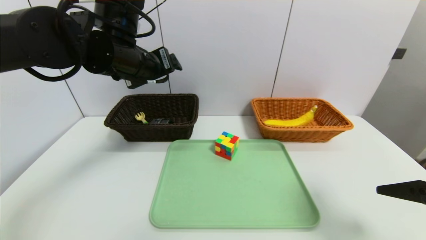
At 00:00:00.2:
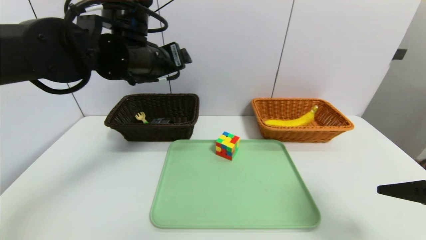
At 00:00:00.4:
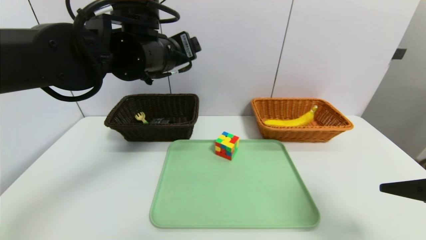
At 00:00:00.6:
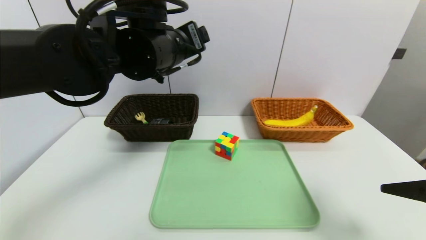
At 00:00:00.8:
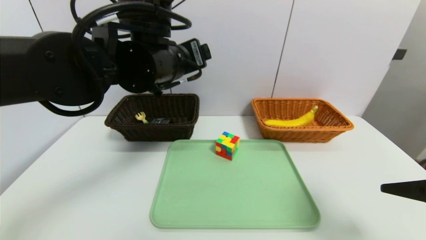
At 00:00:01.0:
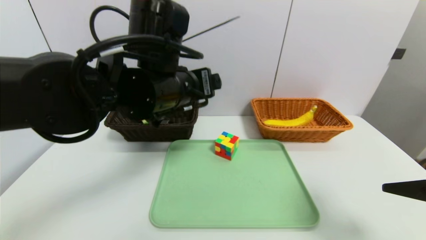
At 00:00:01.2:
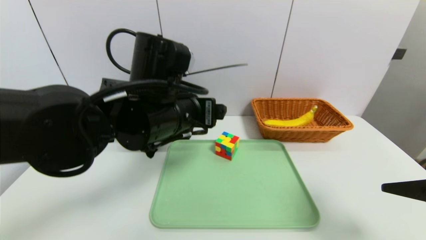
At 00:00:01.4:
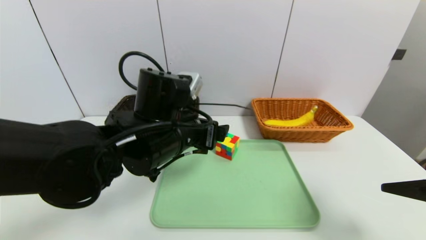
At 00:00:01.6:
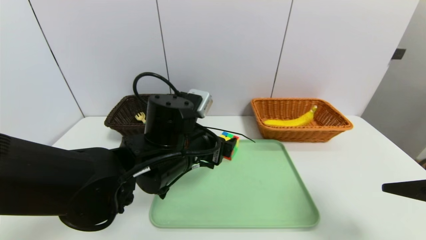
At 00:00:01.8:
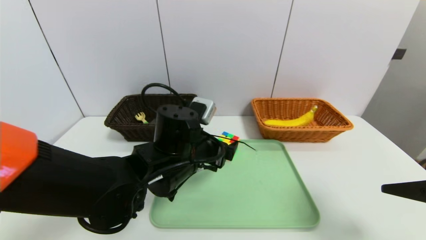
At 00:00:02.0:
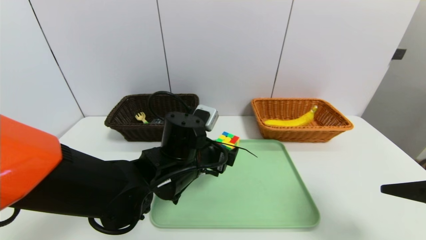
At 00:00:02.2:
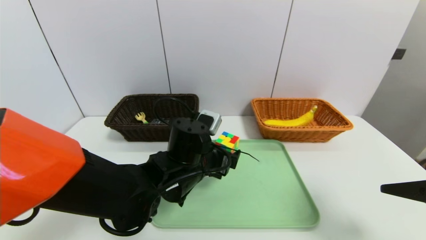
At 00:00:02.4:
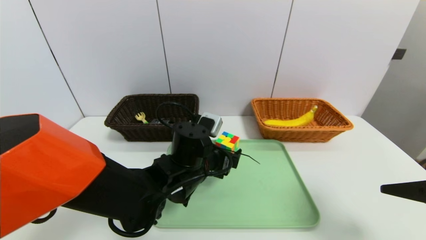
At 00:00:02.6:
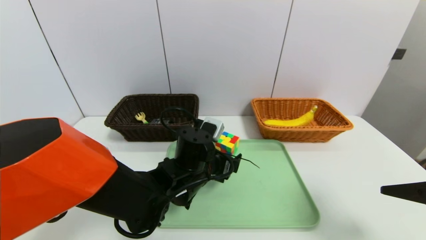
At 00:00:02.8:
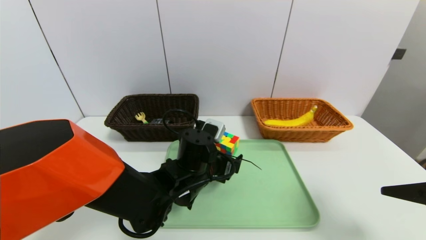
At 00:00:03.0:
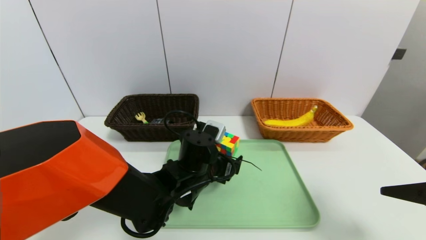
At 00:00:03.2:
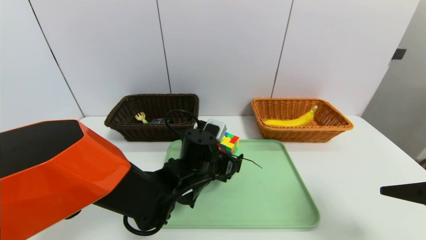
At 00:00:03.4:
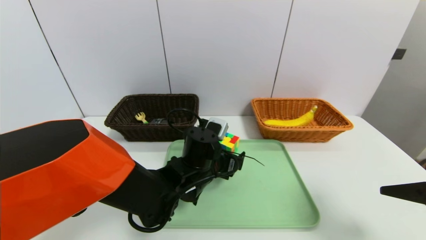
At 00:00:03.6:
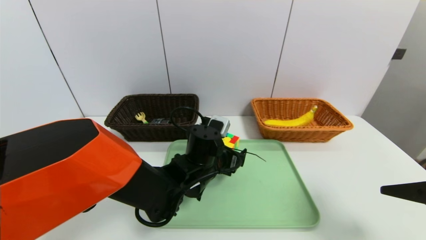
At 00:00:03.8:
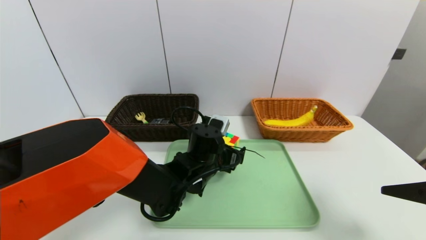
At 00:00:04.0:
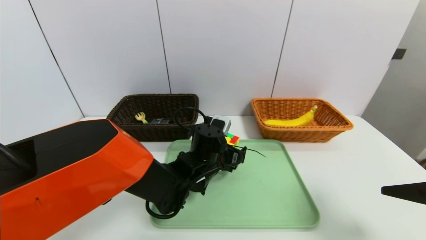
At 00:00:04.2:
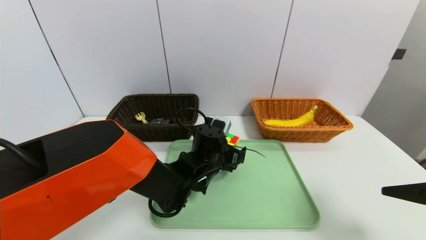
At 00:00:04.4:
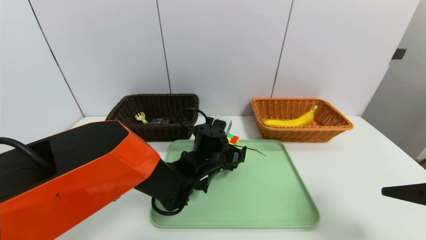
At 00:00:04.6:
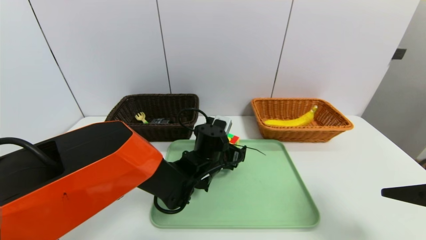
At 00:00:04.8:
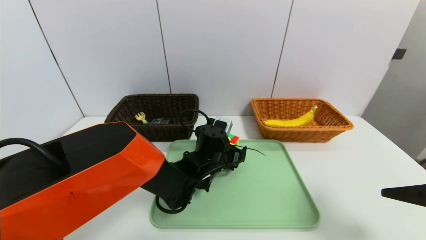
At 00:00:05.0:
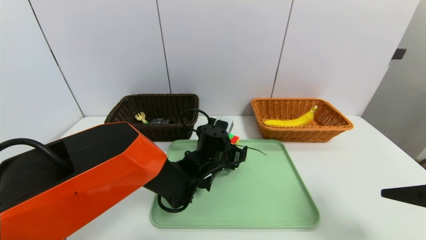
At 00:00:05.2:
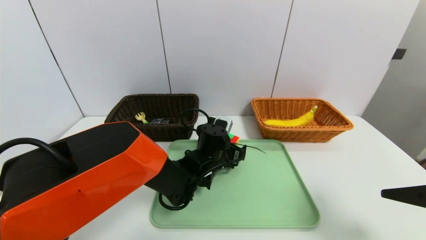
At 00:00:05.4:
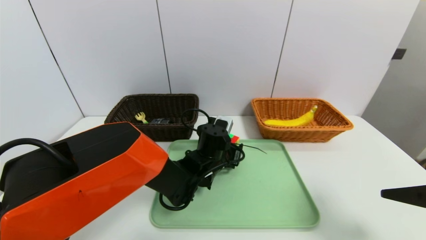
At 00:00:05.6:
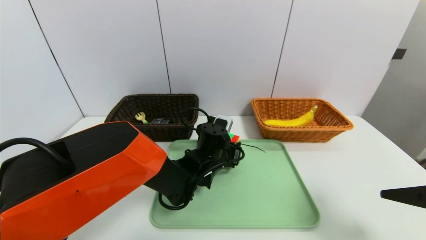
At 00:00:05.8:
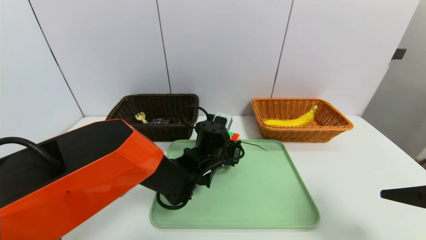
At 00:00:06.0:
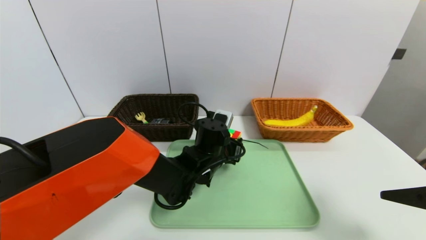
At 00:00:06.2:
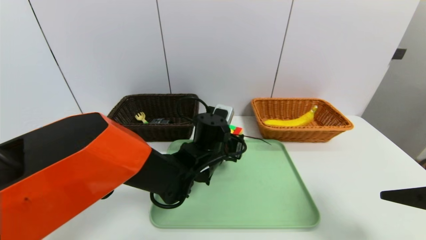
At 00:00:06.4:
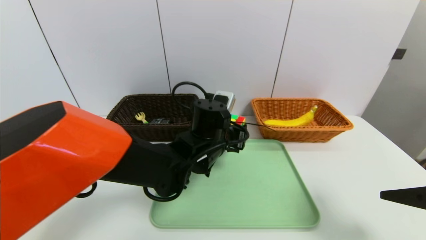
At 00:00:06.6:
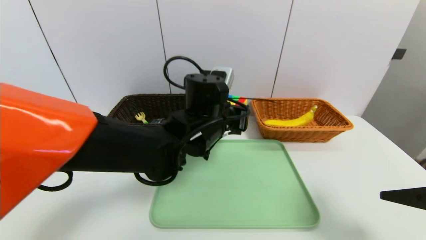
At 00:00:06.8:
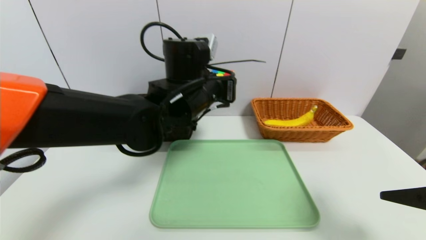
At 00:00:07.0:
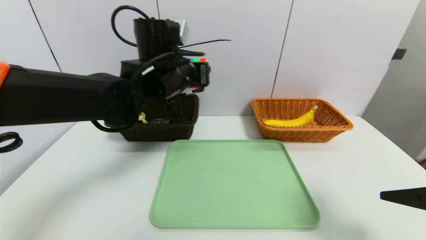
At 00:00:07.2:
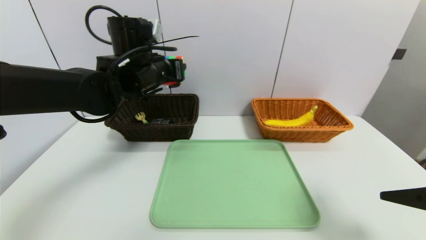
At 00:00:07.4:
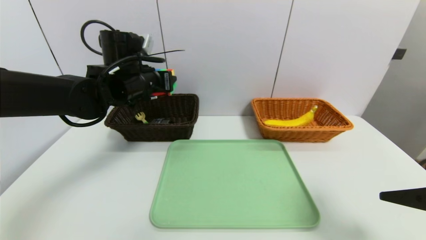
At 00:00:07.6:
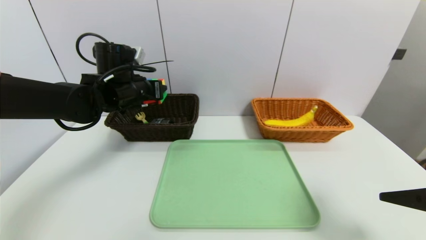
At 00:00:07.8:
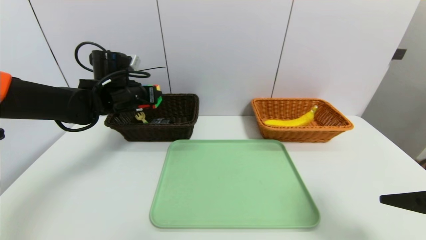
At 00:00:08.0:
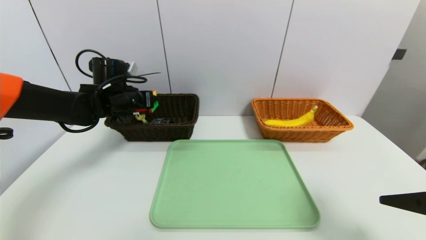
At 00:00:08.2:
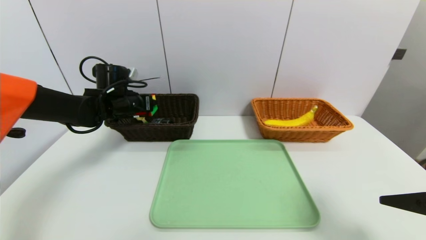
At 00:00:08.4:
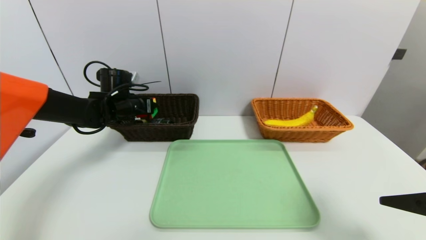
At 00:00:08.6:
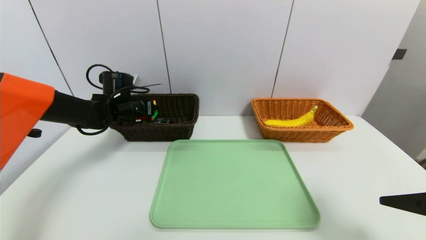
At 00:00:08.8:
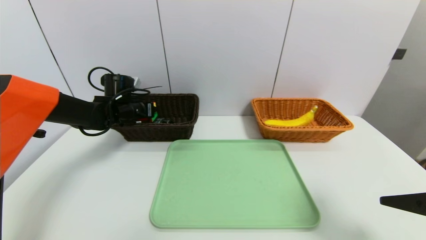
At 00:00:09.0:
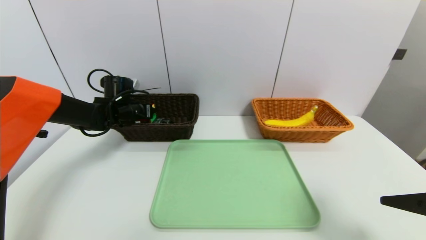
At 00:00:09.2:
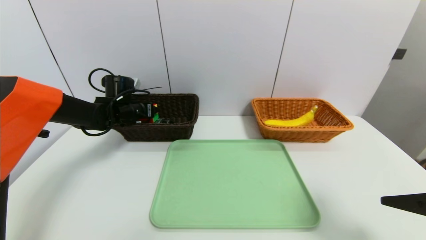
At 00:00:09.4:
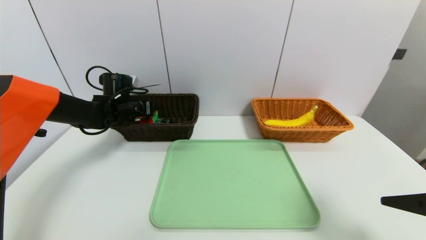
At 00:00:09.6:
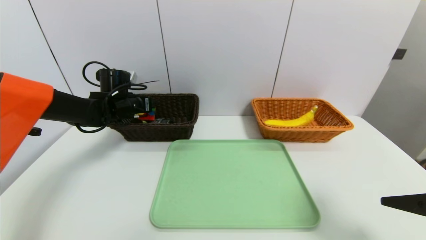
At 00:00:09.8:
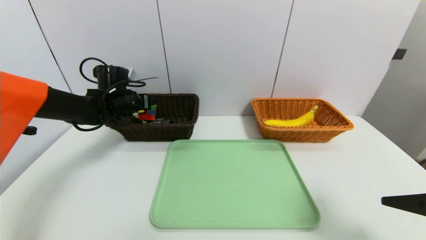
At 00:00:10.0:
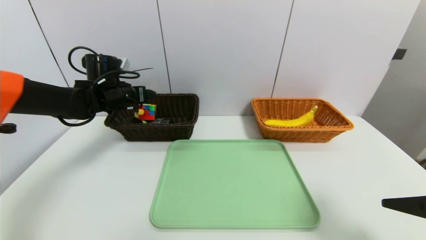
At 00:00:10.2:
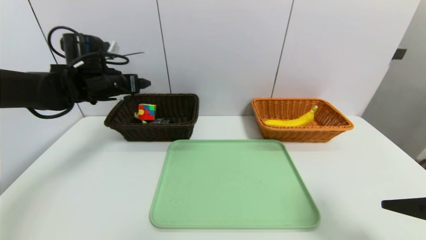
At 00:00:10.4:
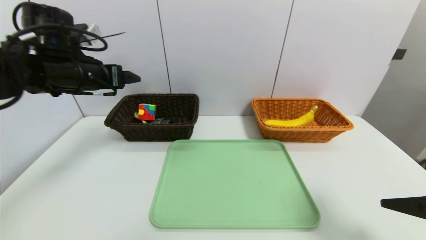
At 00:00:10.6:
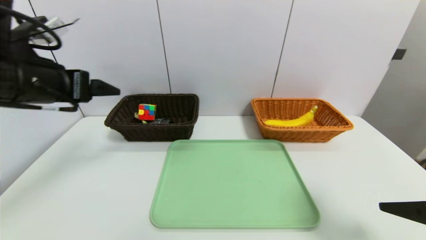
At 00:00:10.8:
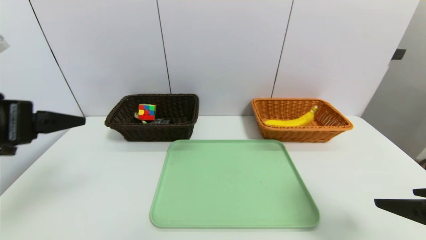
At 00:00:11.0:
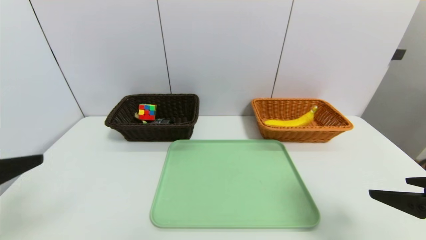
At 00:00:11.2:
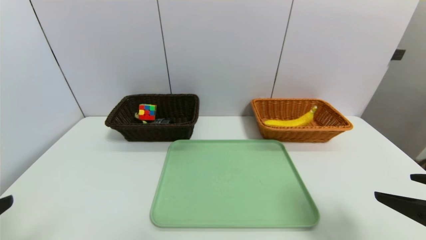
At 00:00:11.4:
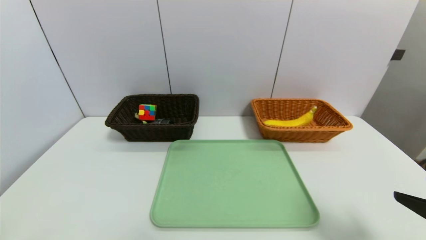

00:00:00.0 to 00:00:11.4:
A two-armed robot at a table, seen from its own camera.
Task of the whole recording: place the food in the right basket with the right gripper, and place the non food items in the left basket with the left gripper.
Step, 00:00:00.0 to 00:00:08.8: Grasp the rubiks cube and put it in the left basket.
00:00:00.0 to 00:00:01.4: The left gripper goes some 15 cm downward, backward and to the right.
00:00:01.4 to 00:00:02.8: The left gripper shifts about 10 cm downward.
00:00:02.8 to 00:00:04.2: The grippers stay close to where they were, moving slightly.
00:00:04.2 to 00:00:05.6: The left gripper closes its fingers.
00:00:05.6 to 00:00:07.2: The left gripper moves upward and to the left, approximately 25 cm.
00:00:07.2 to 00:00:08.6: The left gripper shifts approximately 20 cm downward, to the left and forward.
00:00:08.6 to 00:00:10.0: The left gripper ends up roughly 5 cm from where it was, and opens.
00:00:10.0 to 00:00:11.4: The left gripper goes roughly 40 cm backward.
